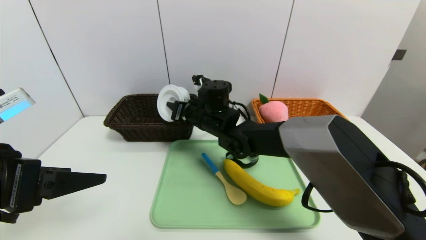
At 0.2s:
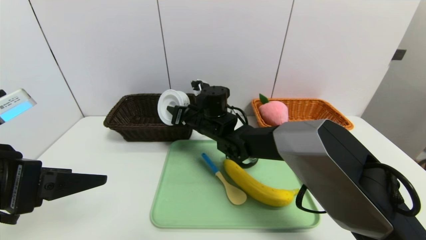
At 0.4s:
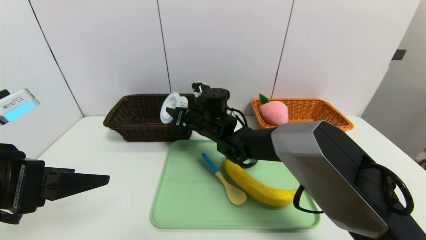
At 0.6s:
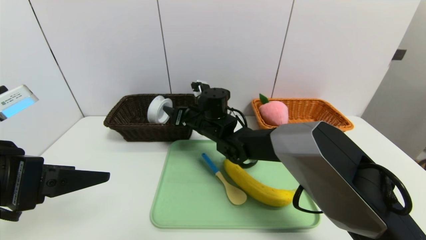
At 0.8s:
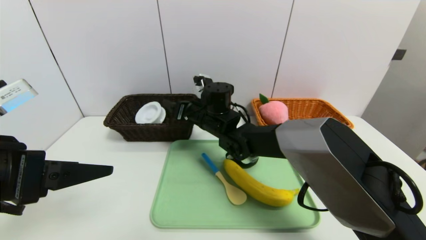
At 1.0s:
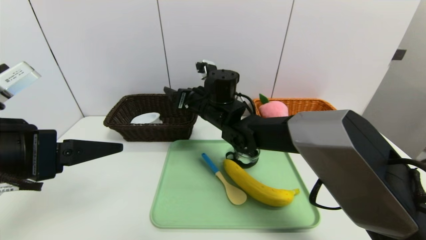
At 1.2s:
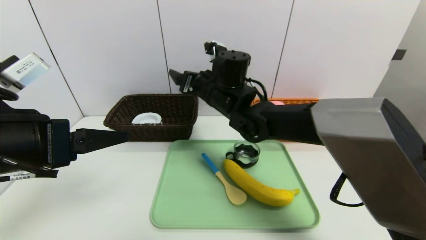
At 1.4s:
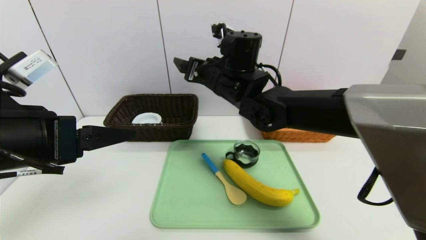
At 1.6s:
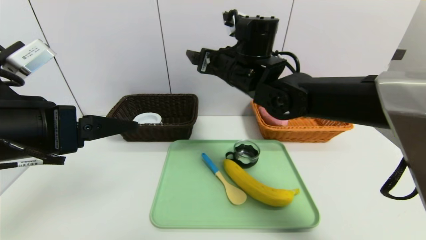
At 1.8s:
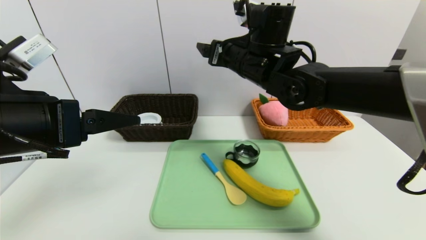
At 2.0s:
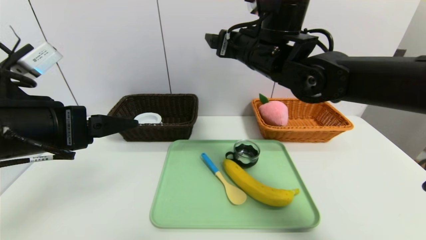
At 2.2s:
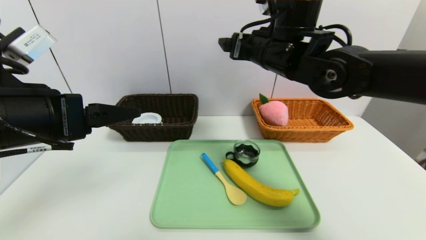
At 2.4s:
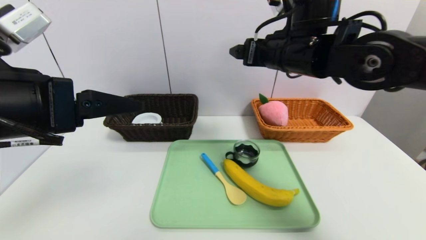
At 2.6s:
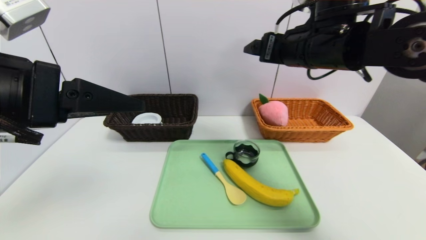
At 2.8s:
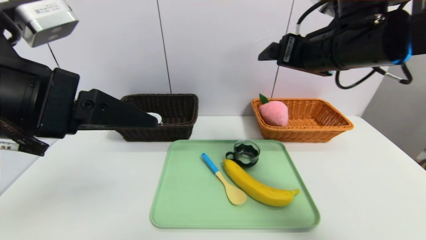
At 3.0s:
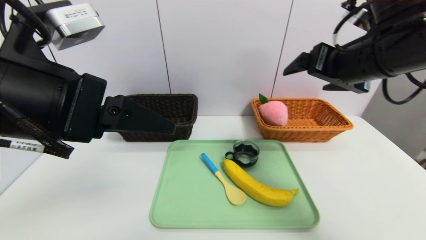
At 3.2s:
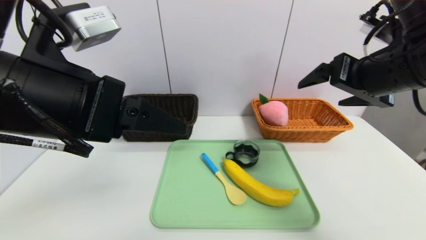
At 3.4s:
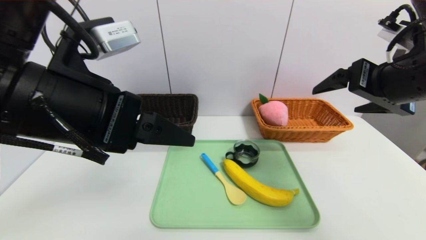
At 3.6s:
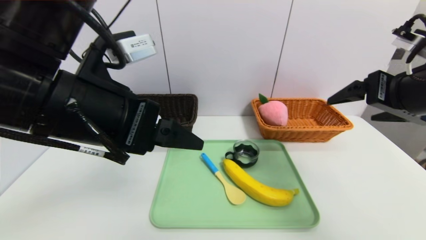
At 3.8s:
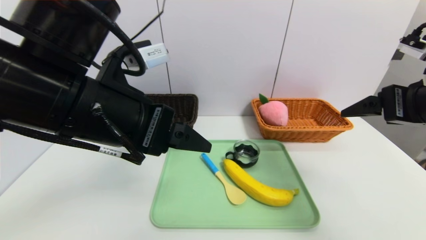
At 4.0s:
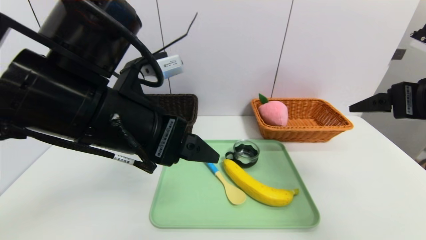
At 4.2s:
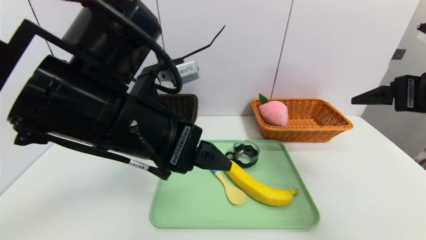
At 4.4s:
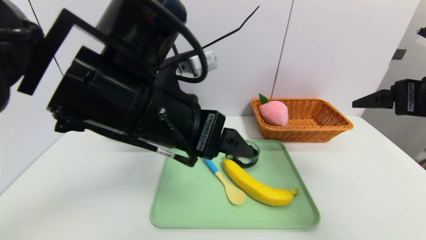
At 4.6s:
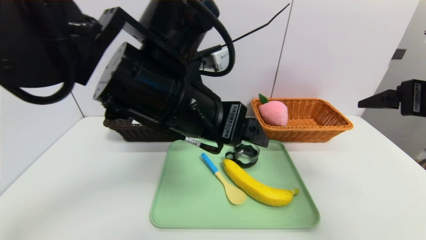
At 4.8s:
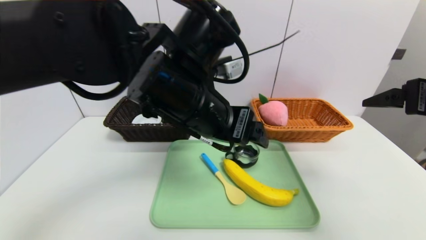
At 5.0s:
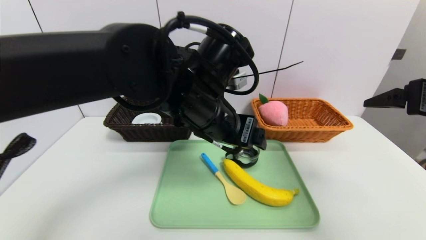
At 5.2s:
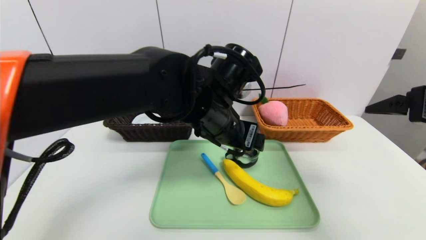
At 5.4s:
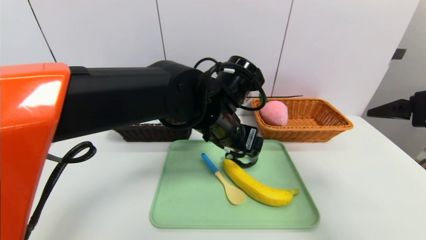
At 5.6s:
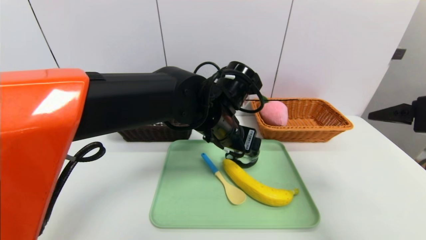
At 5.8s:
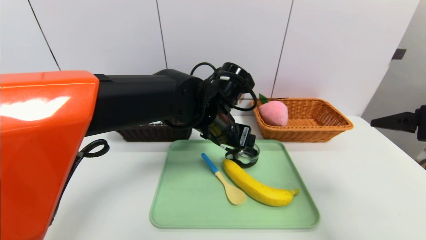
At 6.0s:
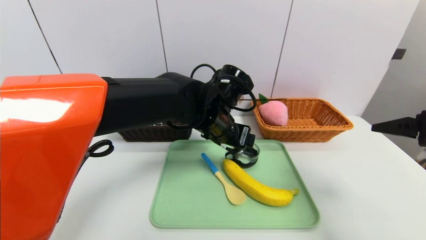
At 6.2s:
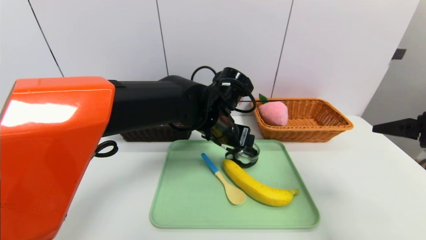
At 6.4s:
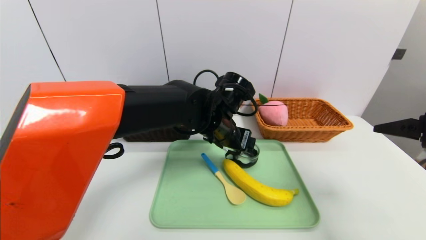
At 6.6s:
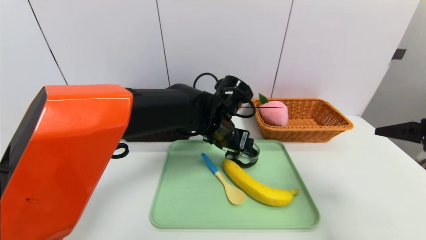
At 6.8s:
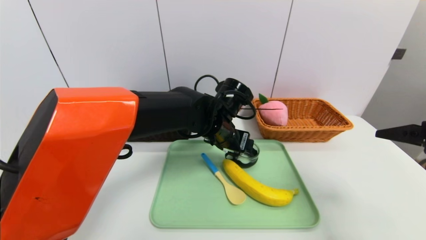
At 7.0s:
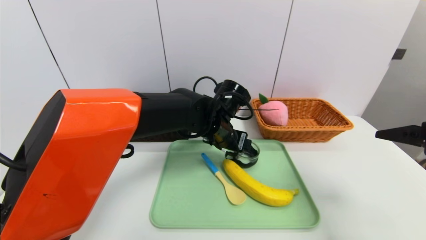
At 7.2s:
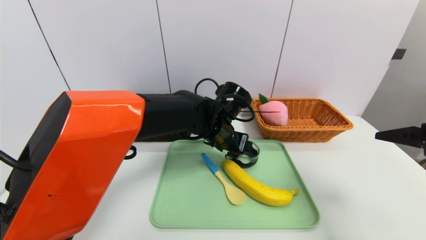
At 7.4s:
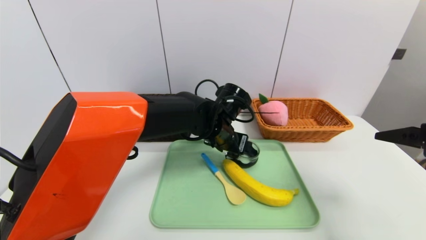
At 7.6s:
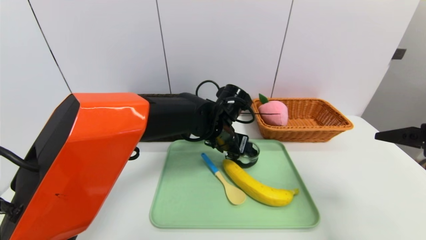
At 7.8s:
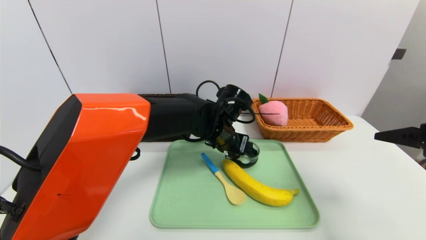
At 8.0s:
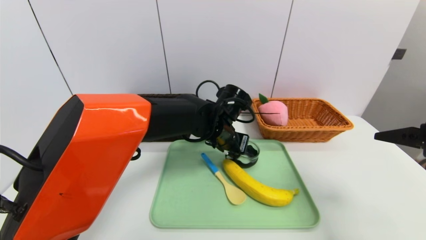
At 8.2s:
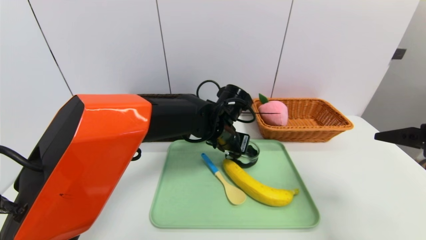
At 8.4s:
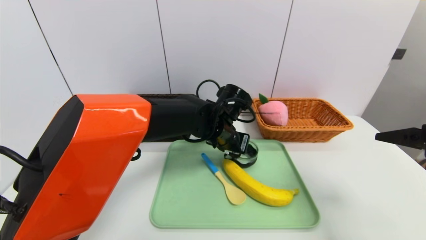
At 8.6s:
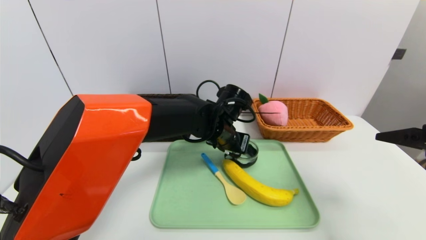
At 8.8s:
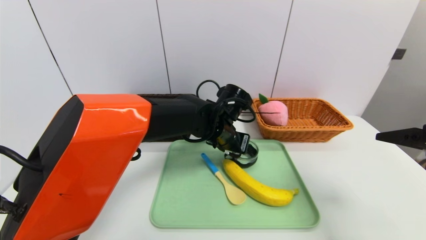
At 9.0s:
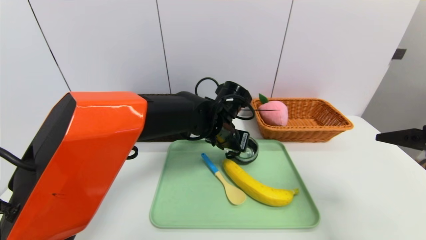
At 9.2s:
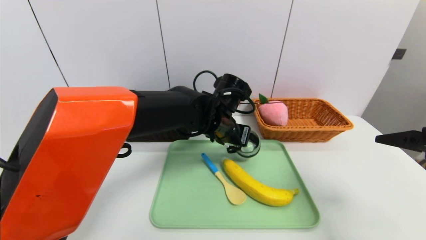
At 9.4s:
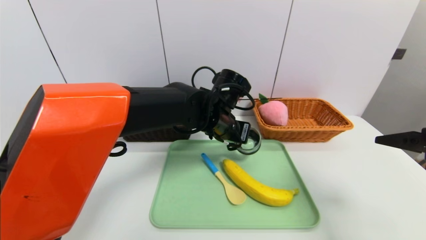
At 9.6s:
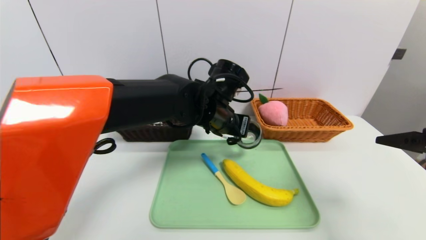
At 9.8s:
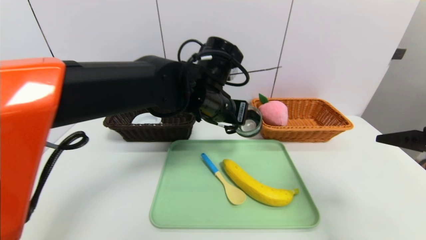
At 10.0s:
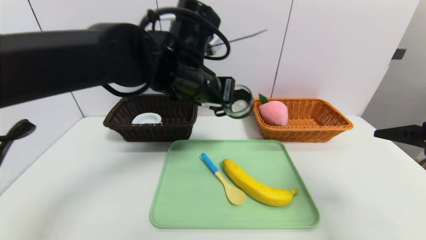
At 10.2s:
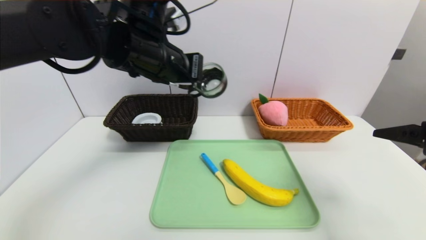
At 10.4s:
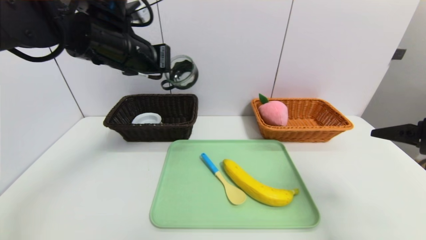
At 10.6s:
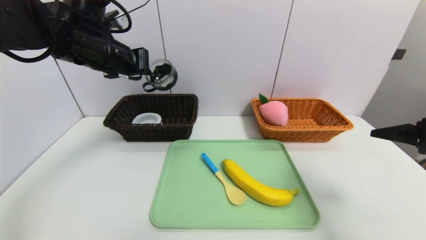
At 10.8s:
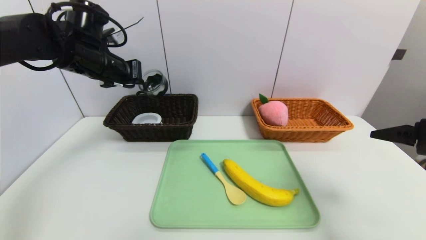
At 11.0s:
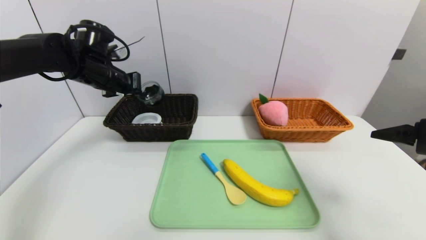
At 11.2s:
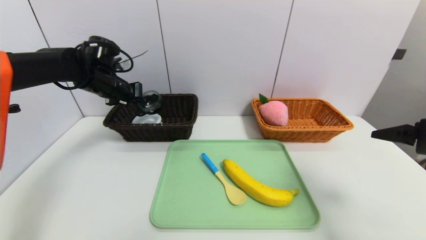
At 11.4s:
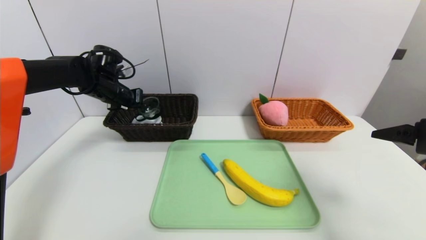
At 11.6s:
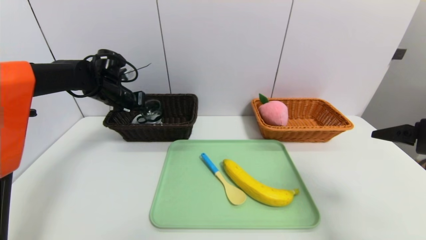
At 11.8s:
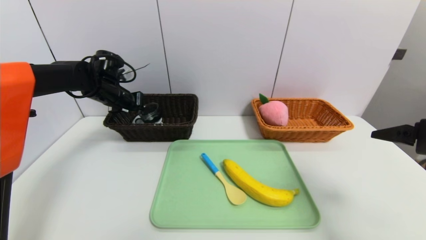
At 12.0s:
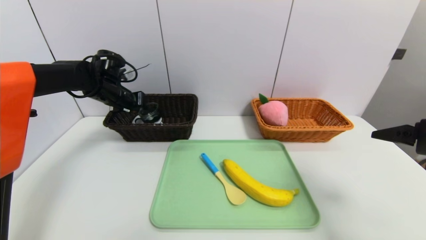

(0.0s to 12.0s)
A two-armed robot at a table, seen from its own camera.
Task of the whole recording: place the food in the right basket with the right gripper, and place the non food items in the left basket with the left gripper.
Step, 1.0s - 11.8s: Grasp the tea cup and put it in the left basket.
0.0s - 1.6s: The right gripper heads upward and to the right, covering some 15 cm, and opens up. The left gripper ends up about 5 cm from where it was.
1.6s - 3.0s: The right gripper is displaced to the right and backward by some 20 cm. Meanwhile the left gripper goes some 5 cm to the right and upward.
3.0s - 4.4s: The right gripper travels to the right and backward by about 10 cm. The left gripper goes some 10 cm to the right.
4.4s - 6.0s: The right gripper changes place by roughly 5 cm. Meanwhile the left gripper travels forward, downward and to the right by roughly 15 cm.
6.0s - 7.6s: The left gripper shifts by roughly 5 cm.
7.6s - 9.0s: The left gripper closes up.
9.0s - 10.4s: The left gripper travels to the left and upward by some 25 cm.
10.4s - 12.0s: The left gripper moves downward, forward and to the left, about 20 cm, and opens.

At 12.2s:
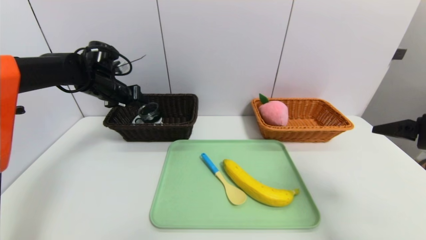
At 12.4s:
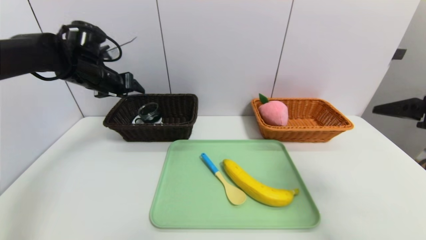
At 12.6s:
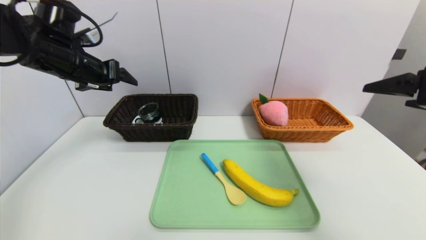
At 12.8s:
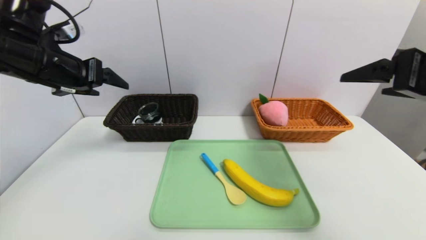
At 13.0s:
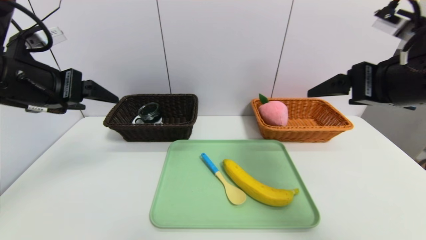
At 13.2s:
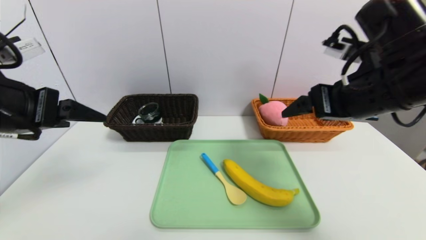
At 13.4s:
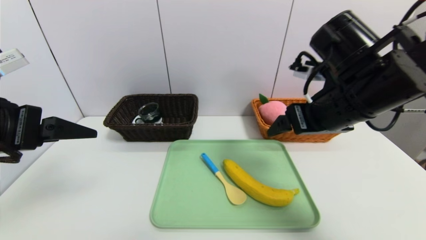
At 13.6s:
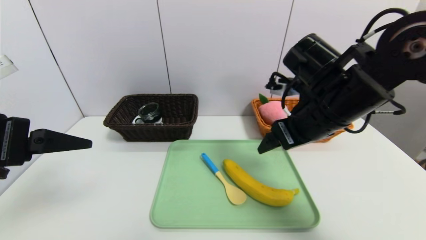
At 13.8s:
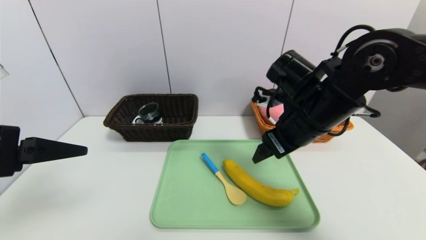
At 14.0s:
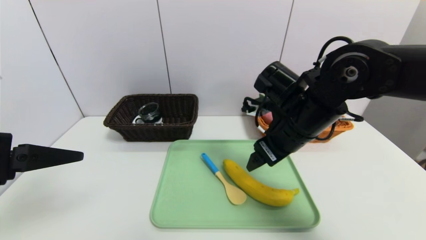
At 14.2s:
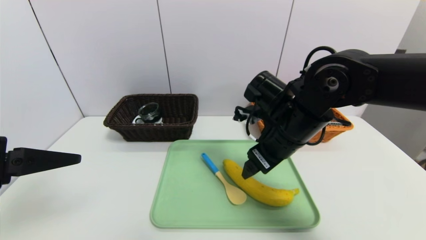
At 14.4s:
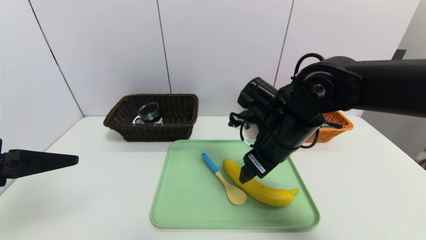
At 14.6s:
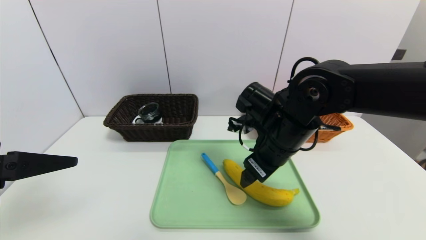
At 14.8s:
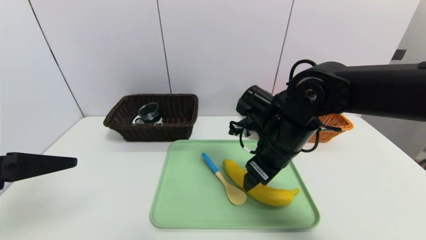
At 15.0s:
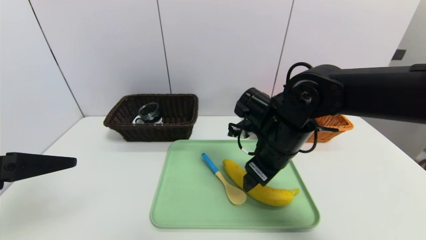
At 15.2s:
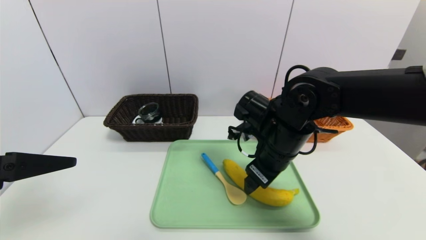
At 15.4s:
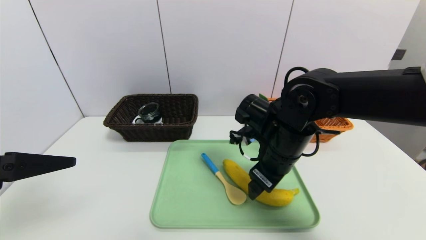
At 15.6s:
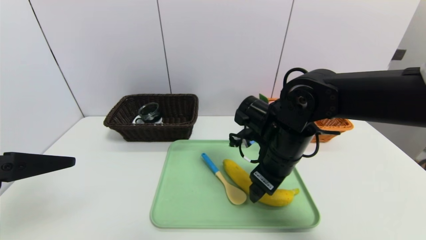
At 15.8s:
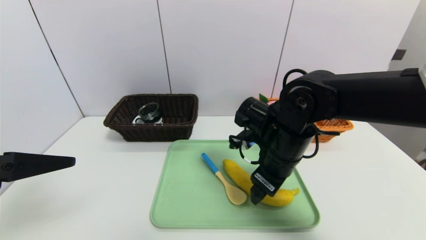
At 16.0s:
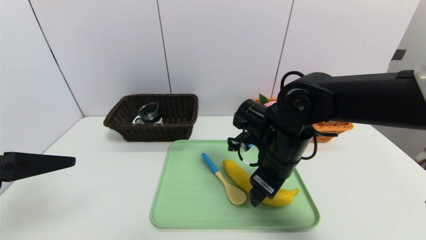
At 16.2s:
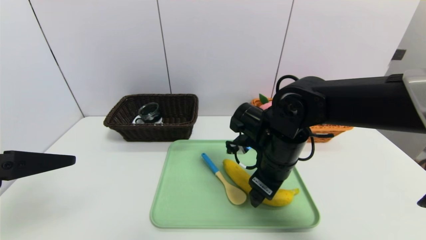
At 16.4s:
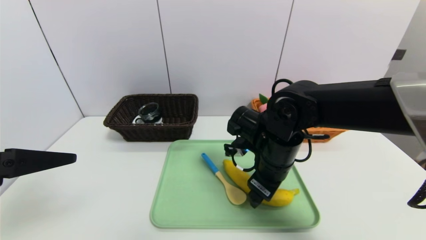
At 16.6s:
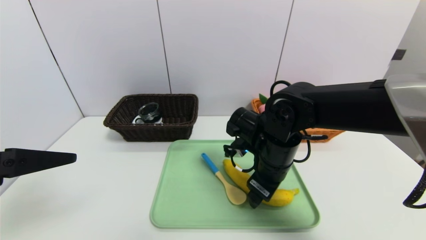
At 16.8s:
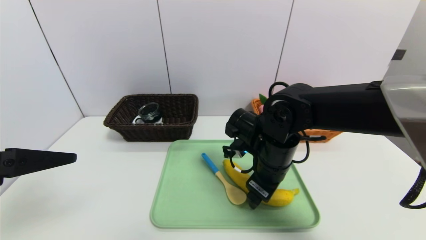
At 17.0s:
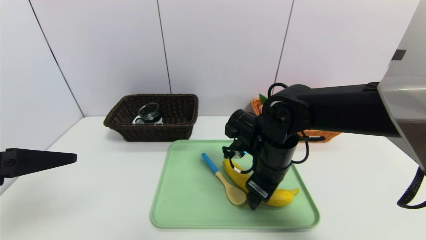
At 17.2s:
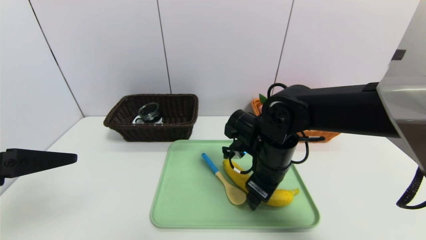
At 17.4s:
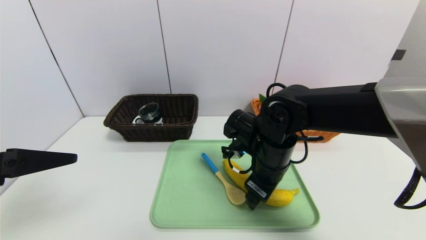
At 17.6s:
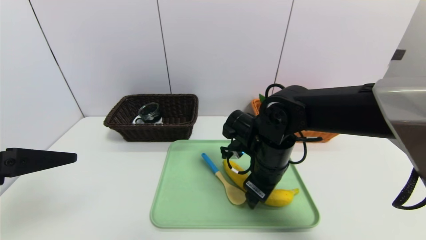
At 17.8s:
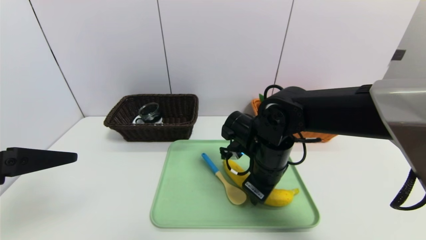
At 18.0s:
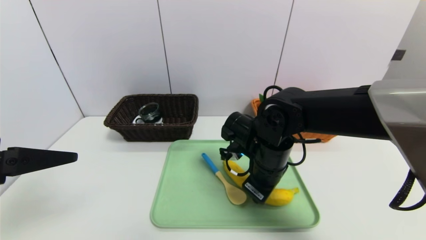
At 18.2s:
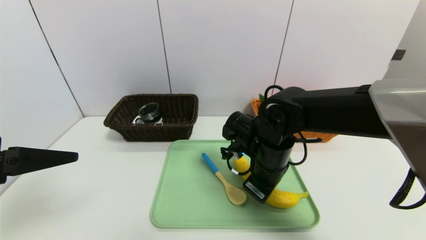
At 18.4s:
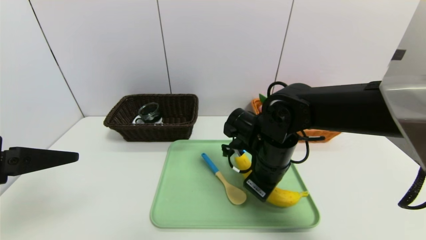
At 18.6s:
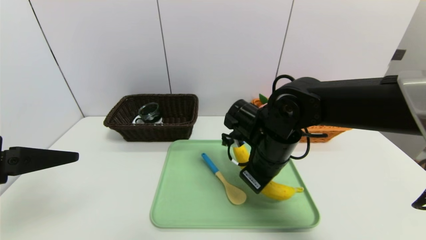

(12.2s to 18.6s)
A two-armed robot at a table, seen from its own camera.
Task of the whole recording: place the food in the right basket with the right gripper, and place the non food items in the left basket with the left gripper.
12.2s - 13.8s: The left gripper heads backward, covering roughly 30 cm, while the right gripper goes roughly 20 cm to the left and forward.
13.8s - 15.4s: The right gripper goes roughly 5 cm downward.
15.4s - 17.0s: The grippers make only small movements.
17.0s - 18.6s: The right gripper closes.
